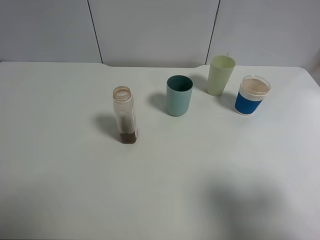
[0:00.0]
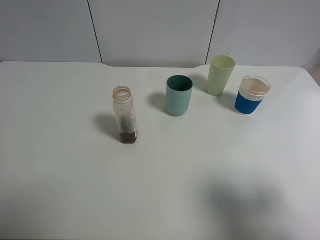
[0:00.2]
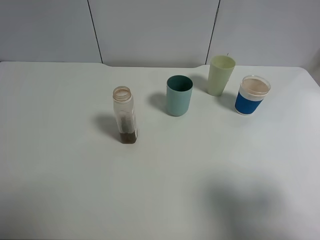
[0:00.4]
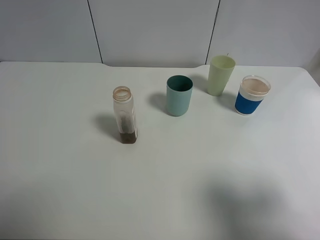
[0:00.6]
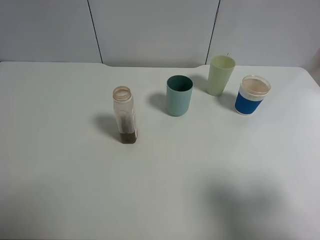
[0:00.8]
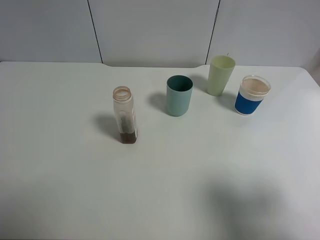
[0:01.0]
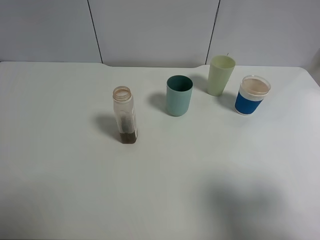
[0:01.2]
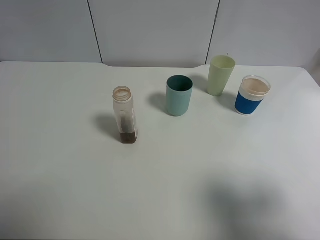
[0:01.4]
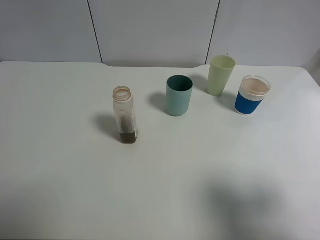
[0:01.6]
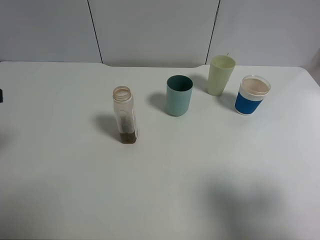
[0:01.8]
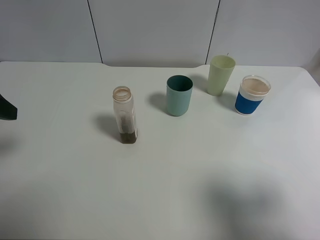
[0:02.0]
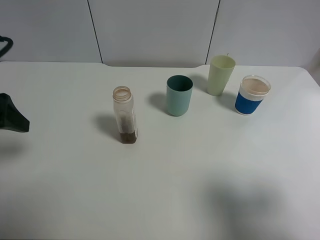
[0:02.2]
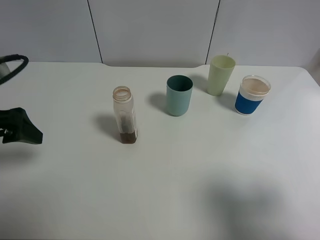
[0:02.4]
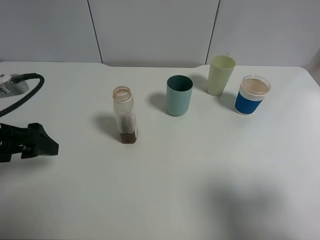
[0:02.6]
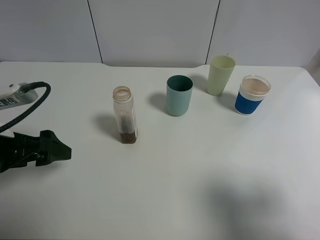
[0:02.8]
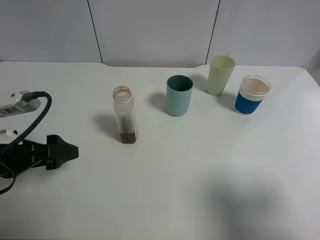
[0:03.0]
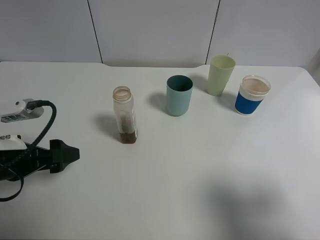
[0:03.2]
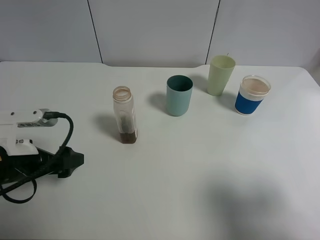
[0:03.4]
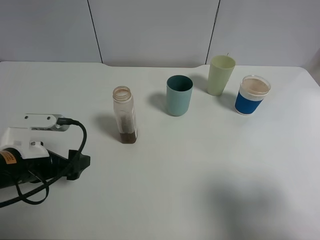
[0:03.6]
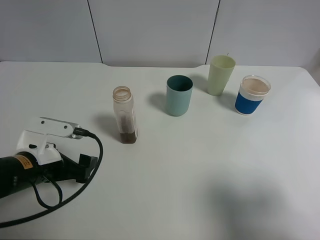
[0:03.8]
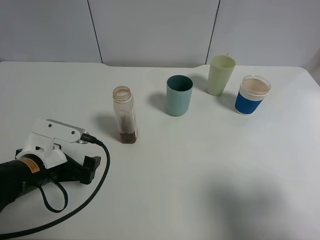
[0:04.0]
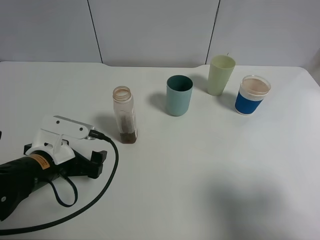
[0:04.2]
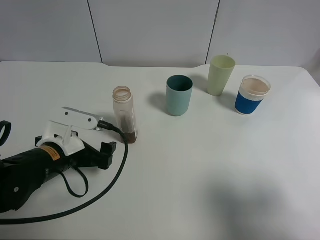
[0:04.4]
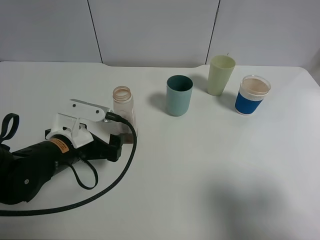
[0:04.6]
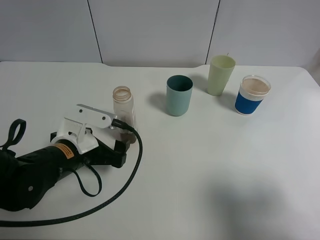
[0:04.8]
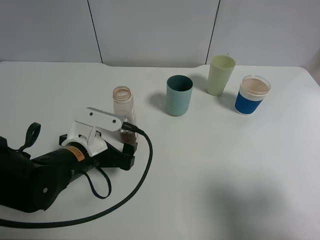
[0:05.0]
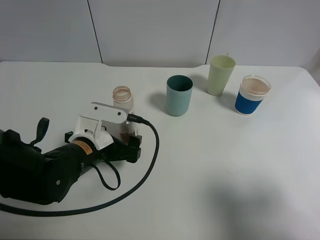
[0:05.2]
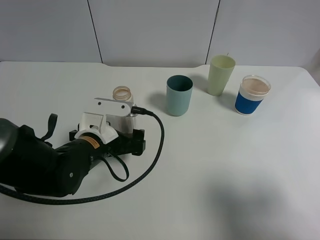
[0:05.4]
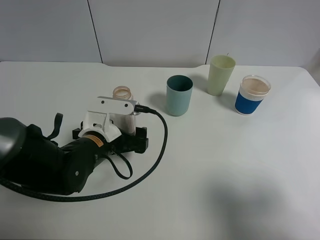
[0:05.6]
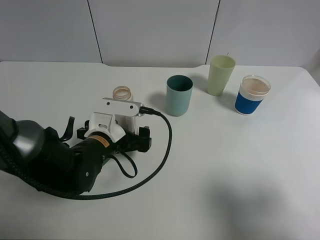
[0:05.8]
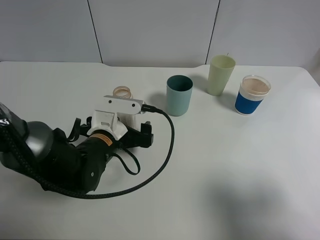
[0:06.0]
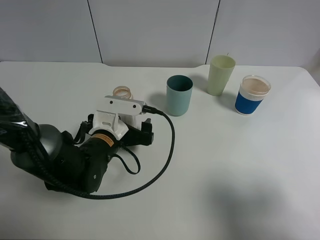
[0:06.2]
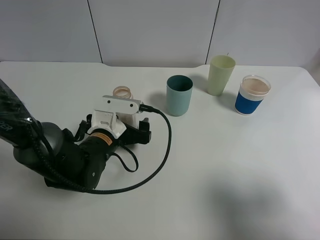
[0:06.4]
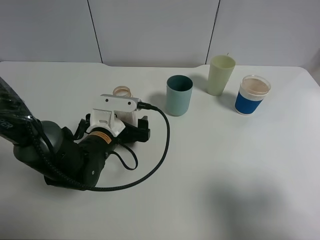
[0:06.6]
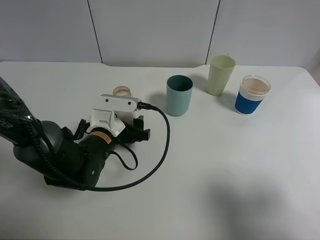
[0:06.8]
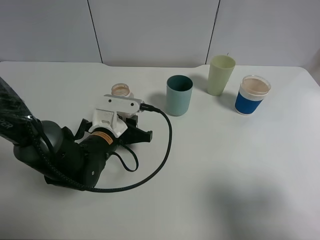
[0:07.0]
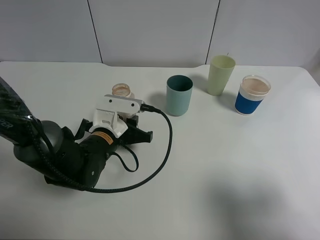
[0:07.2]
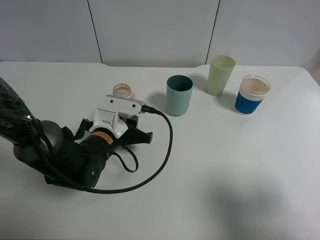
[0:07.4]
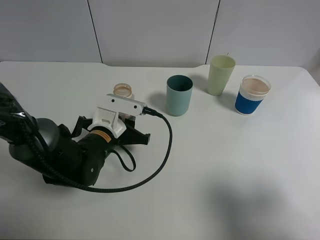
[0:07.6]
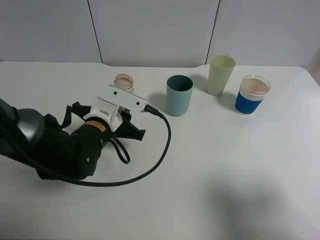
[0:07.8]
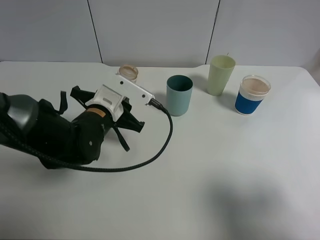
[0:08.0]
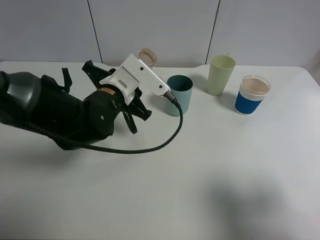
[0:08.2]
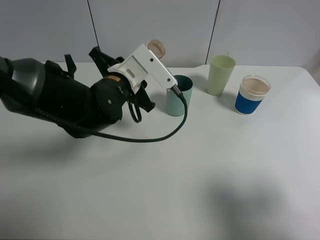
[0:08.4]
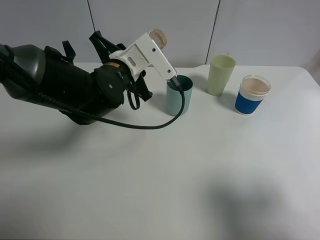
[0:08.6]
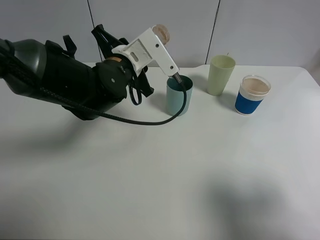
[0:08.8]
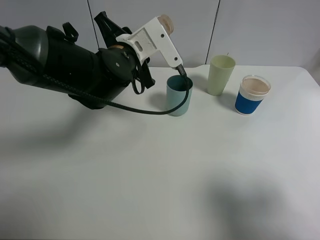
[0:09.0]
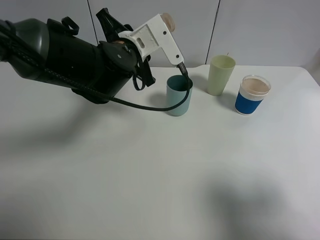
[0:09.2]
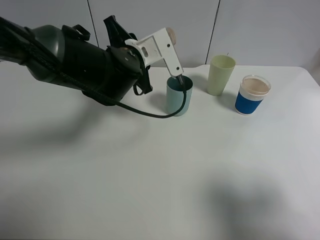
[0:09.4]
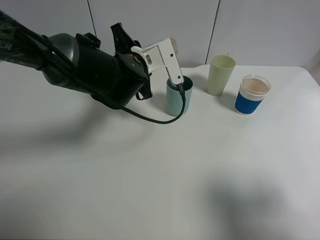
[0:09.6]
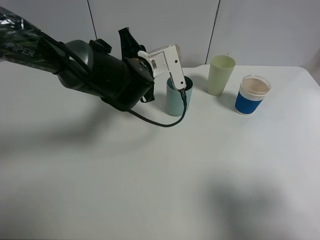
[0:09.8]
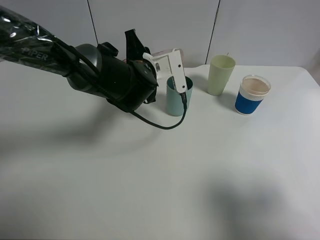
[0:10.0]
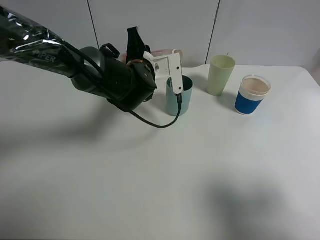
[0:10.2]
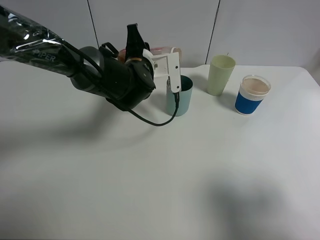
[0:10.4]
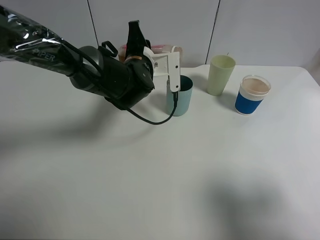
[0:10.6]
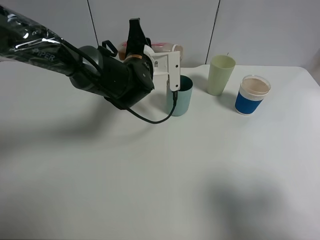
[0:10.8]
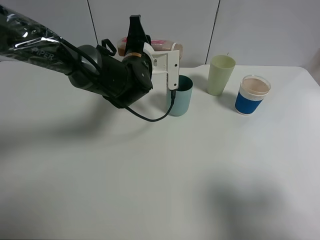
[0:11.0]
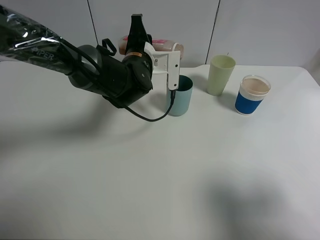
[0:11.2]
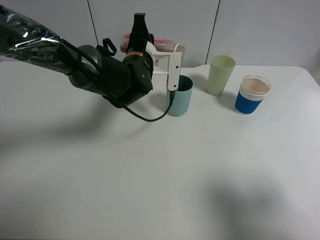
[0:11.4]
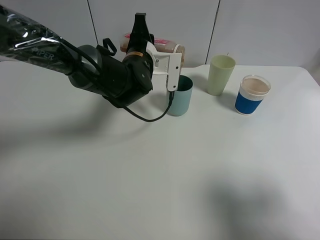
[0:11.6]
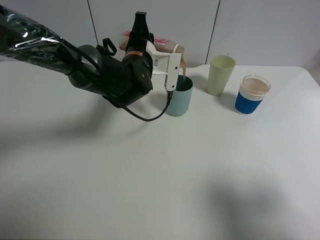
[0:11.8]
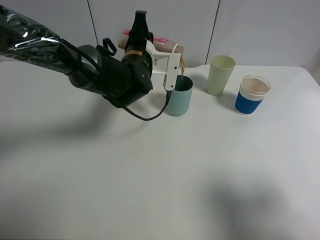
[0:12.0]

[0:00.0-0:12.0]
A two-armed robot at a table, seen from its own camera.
Task of the whole recording: use a clamp to hold the bottle of the drink, pour the beverage into a random cup, then clamp the cup containing the drink and pour the drink into another random cup.
Step, 0:00.0 to 0:07.8: Pick up the drink bottle with left gripper.
0:01.6 to 0:03.0: The left gripper heads downward, covering roughly 15 cm.
0:03.0 to 0:04.4: The left gripper is displaced to the right and downward by approximately 10 cm.
0:04.4 to 0:06.0: The left gripper heads to the right, covering some 5 cm.
0:06.0 to 0:07.6: The left gripper closes its fingers.
0:07.6 to 0:09.0: The left gripper heads upward and forward, covering roughly 15 cm.
0:09.0 to 0:10.4: The left gripper moves about 5 cm.
0:10.4 to 0:12.0: There are only small adjustments of the grippers.

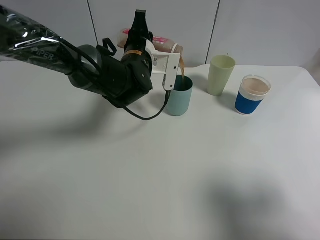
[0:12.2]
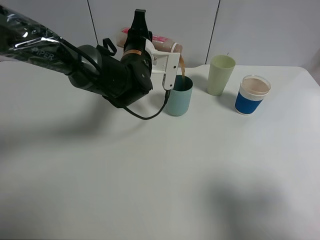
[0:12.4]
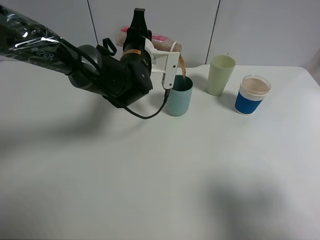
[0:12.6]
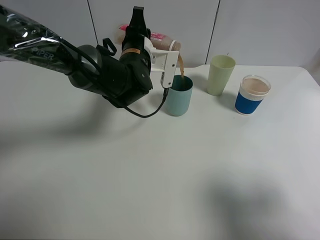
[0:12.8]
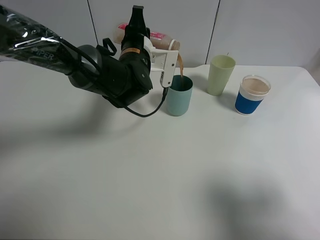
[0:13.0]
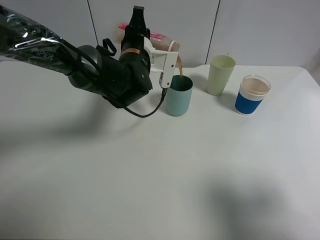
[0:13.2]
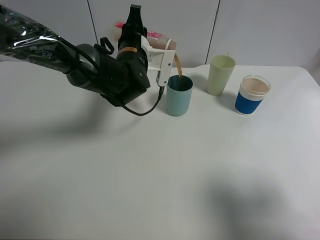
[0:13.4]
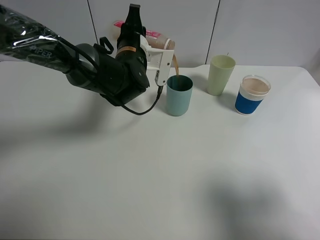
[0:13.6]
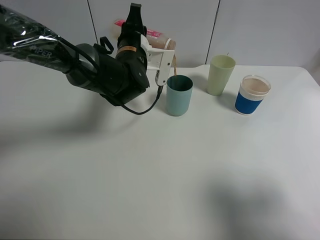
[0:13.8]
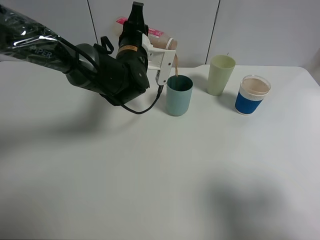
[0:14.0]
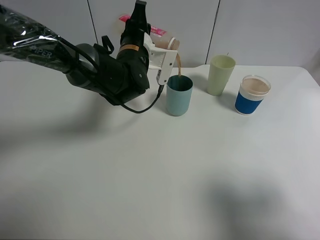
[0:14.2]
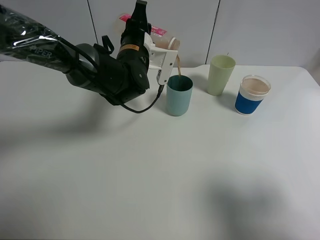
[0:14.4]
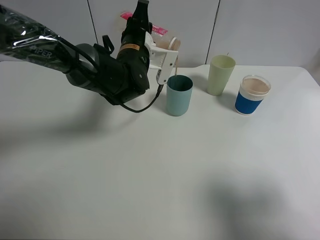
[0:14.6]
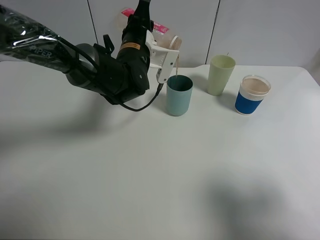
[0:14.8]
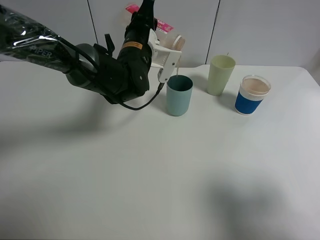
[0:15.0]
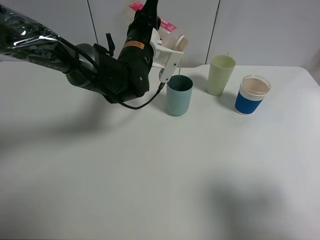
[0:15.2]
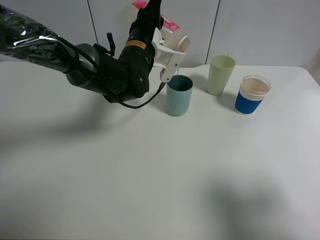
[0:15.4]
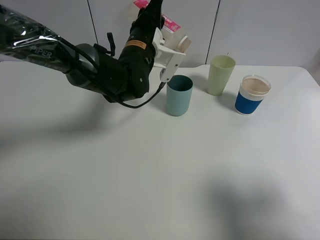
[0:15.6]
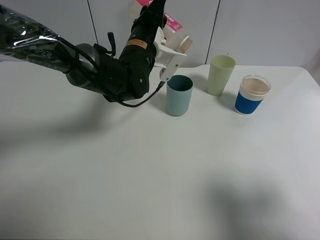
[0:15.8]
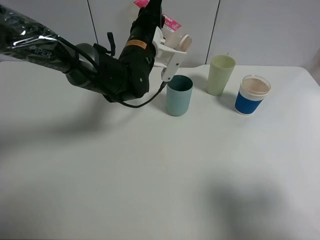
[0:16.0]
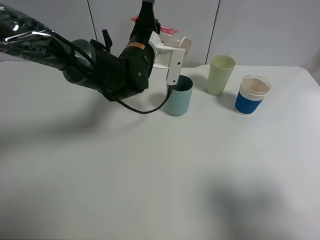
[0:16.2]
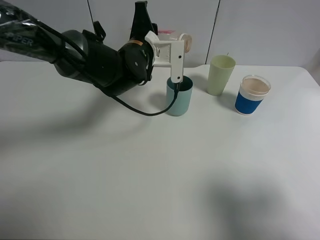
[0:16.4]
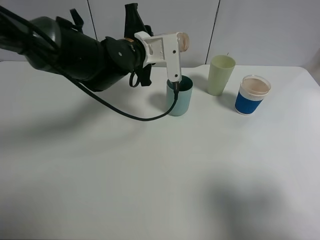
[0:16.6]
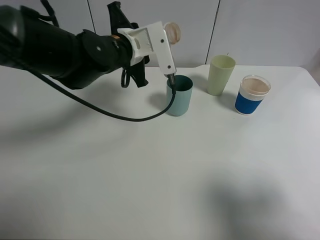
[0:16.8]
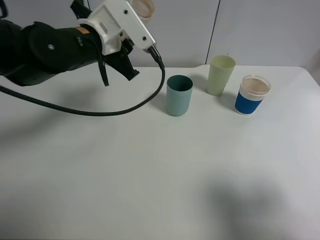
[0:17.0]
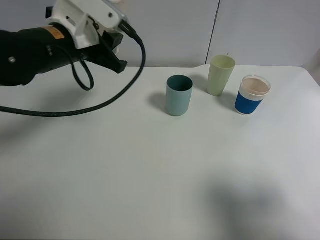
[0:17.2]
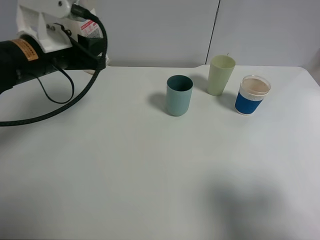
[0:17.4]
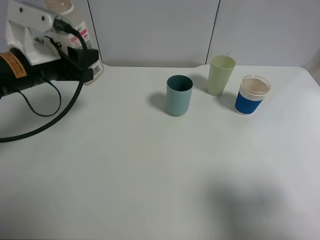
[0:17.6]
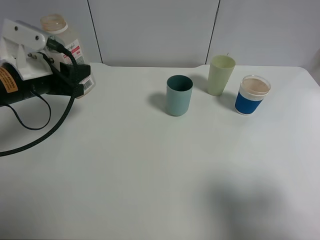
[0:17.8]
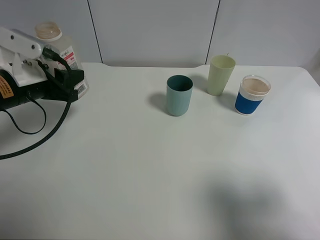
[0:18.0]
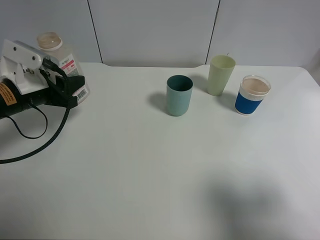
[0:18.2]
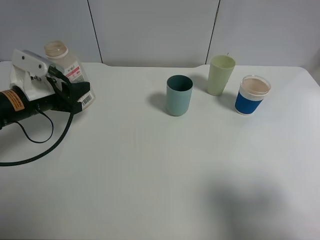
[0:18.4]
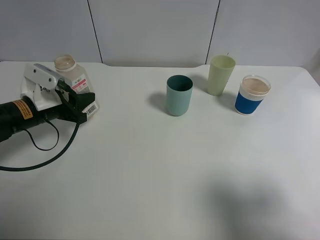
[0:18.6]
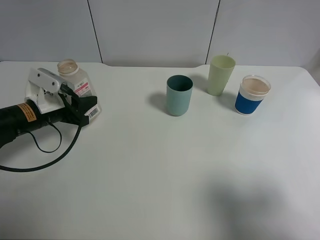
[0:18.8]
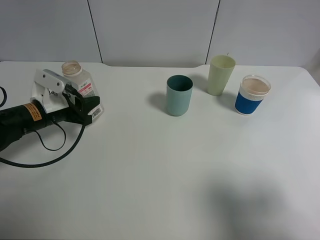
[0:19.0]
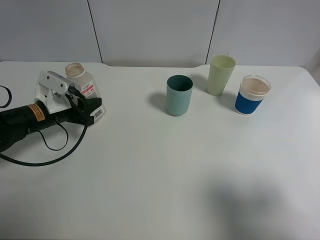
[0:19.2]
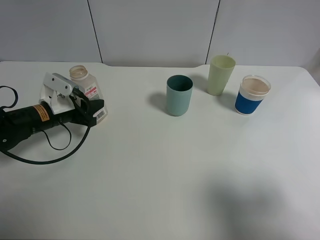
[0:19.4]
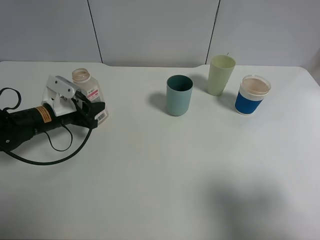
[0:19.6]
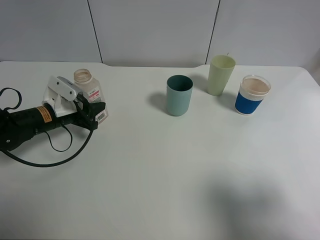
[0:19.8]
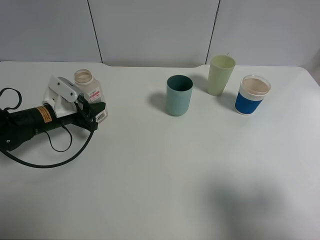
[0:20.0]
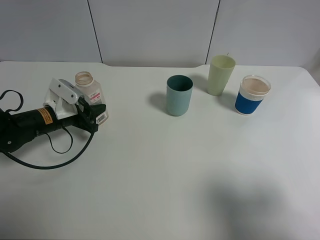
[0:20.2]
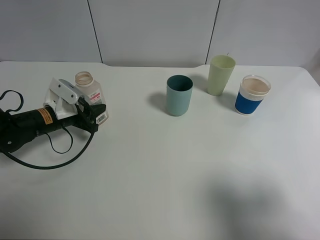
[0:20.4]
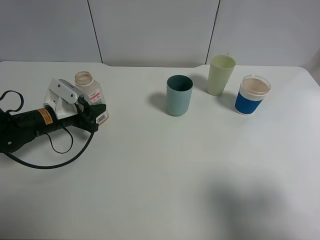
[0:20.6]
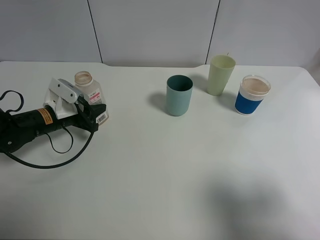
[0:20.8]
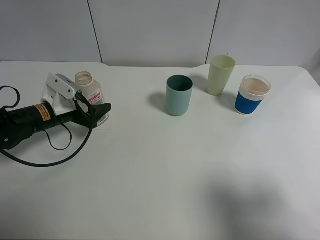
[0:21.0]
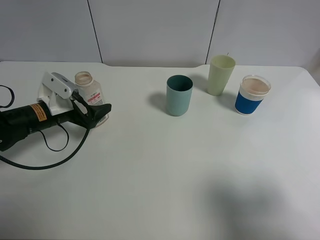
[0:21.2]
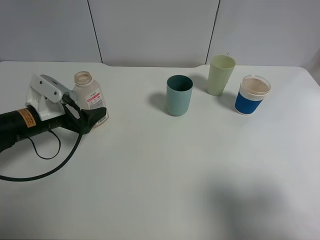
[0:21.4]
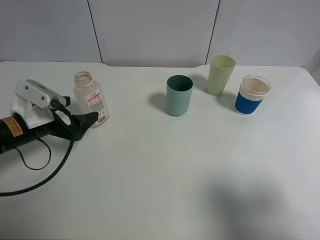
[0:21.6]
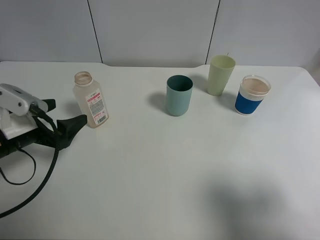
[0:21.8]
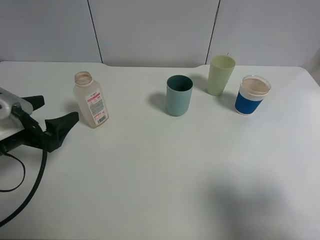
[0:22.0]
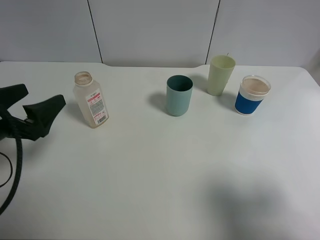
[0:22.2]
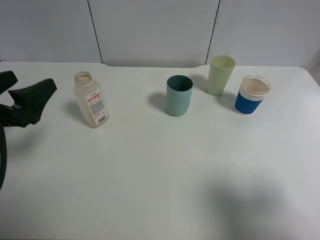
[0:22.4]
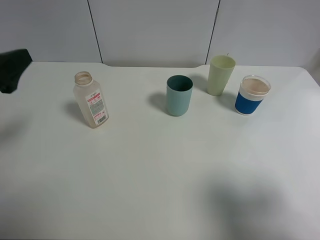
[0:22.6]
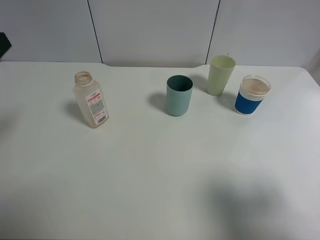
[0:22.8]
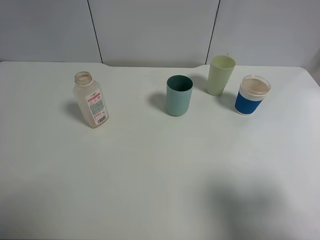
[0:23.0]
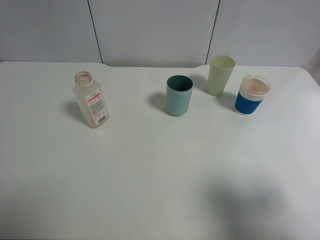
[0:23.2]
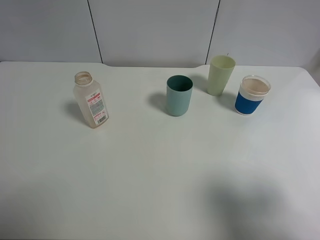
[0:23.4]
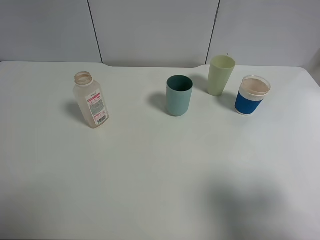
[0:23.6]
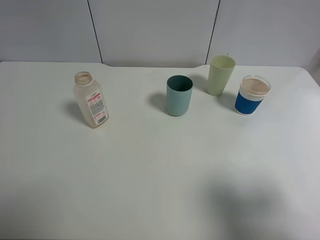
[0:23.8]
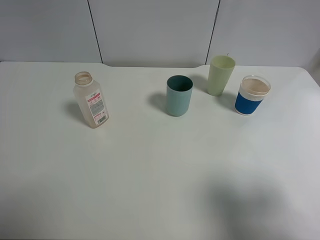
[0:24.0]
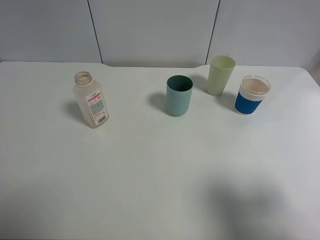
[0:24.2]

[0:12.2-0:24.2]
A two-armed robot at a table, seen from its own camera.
Task of the whole recording: use a clamp to hold the bottle of the drink, pour the beverage into a random cup, then clamp the cup containing the drink and pour the drink into another random cup.
Step, 0:12.2 to 0:16.4: Pour the drink into the blue plastic cup with left gripper.
Step, 0:16.6 to 0:21.4: Place the drink bottle on the table with left gripper.
0:12.2 to 0:15.2: The grippers make only small movements.
0:16.6 to 0:18.2: The left gripper travels to the left and backward by approximately 20 cm.
0:18.2 to 0:19.8: The left gripper goes roughly 10 cm downward.
0:19.8 to 0:21.2: The left gripper opens.
0:21.2 to 0:22.6: The left gripper heads upward and backward, covering some 20 cm.
0:22.6 to 0:24.2: The left gripper moves backward, approximately 15 cm.
